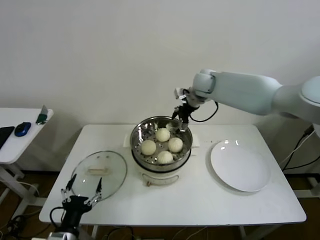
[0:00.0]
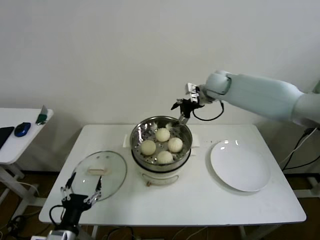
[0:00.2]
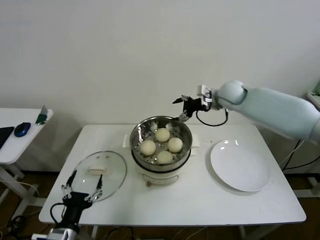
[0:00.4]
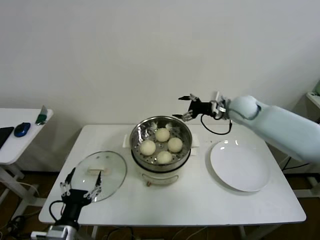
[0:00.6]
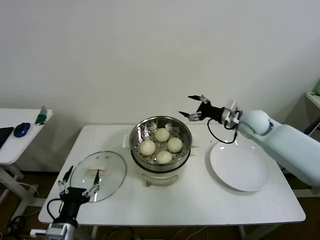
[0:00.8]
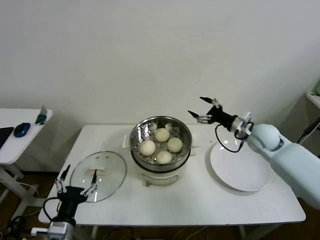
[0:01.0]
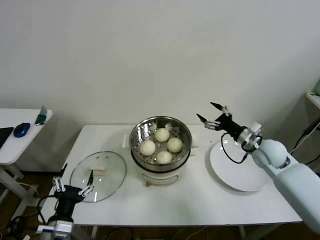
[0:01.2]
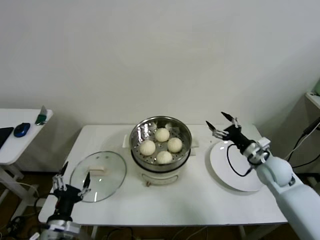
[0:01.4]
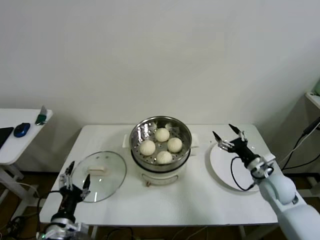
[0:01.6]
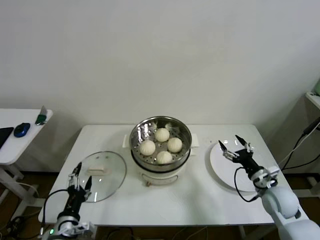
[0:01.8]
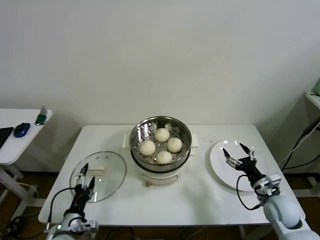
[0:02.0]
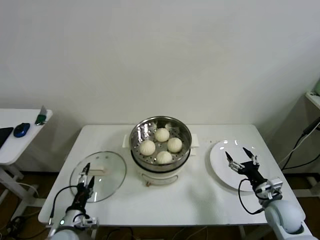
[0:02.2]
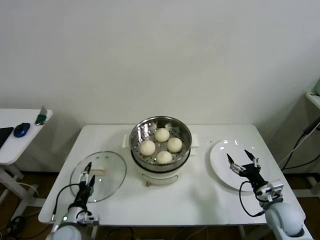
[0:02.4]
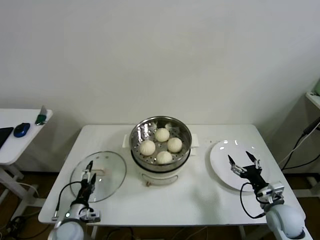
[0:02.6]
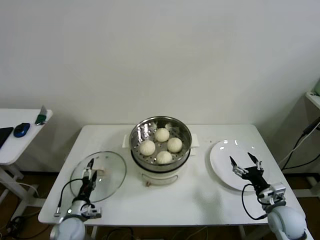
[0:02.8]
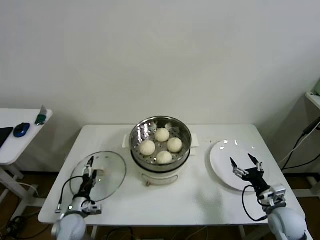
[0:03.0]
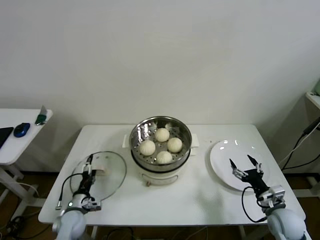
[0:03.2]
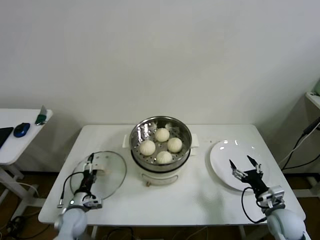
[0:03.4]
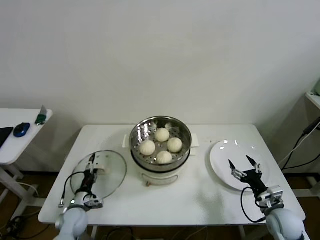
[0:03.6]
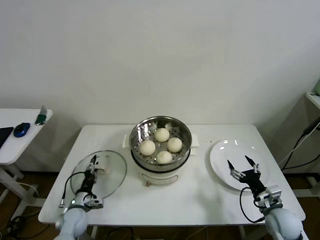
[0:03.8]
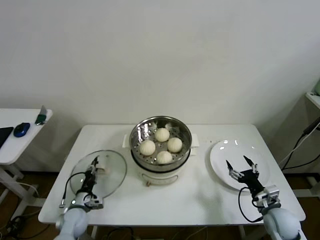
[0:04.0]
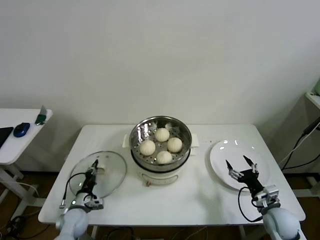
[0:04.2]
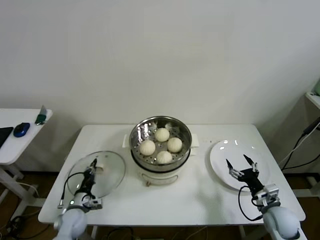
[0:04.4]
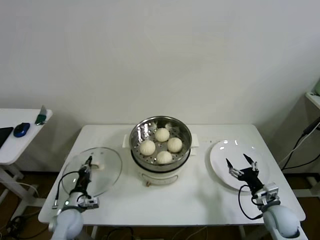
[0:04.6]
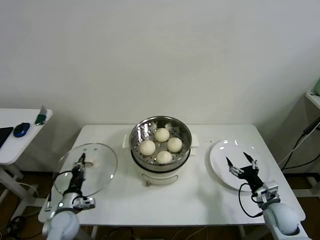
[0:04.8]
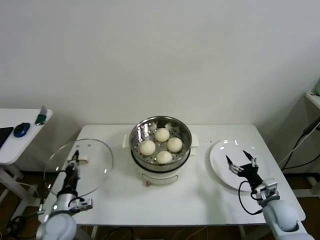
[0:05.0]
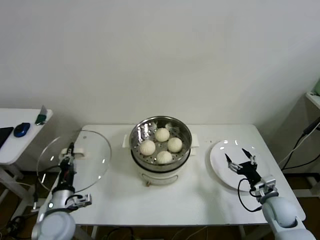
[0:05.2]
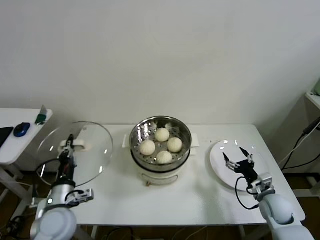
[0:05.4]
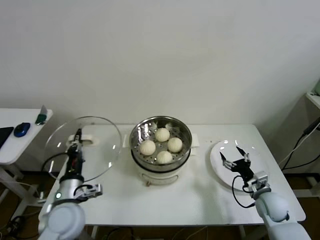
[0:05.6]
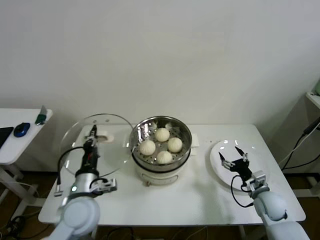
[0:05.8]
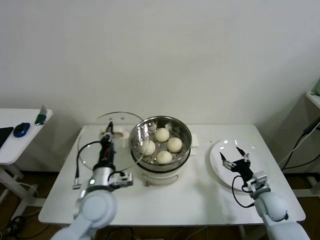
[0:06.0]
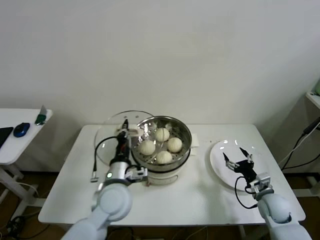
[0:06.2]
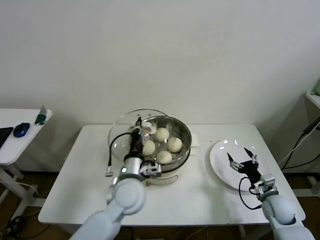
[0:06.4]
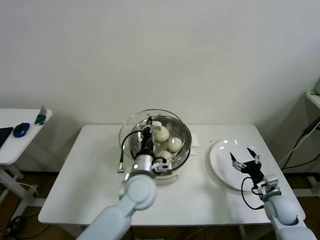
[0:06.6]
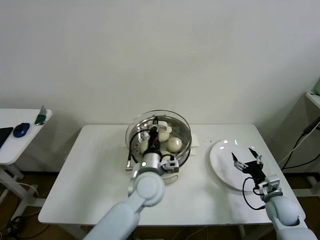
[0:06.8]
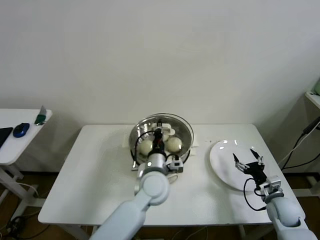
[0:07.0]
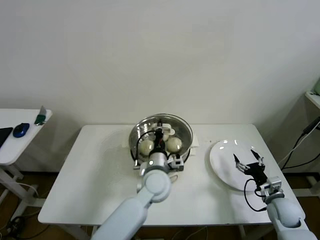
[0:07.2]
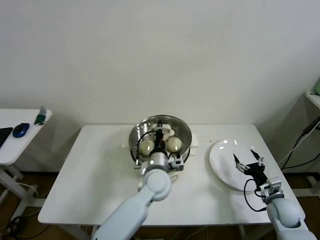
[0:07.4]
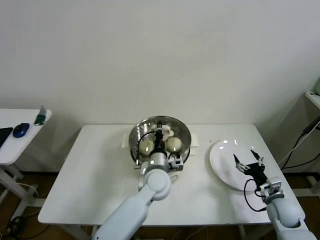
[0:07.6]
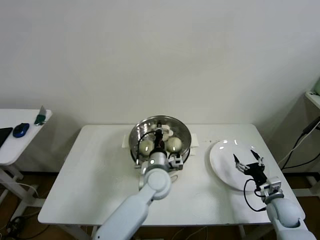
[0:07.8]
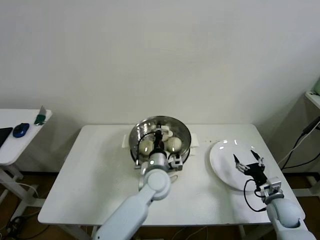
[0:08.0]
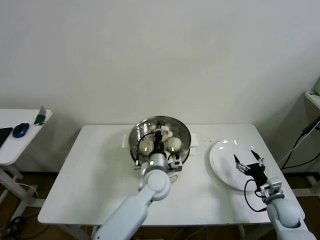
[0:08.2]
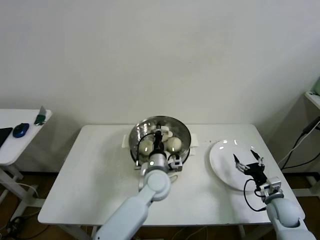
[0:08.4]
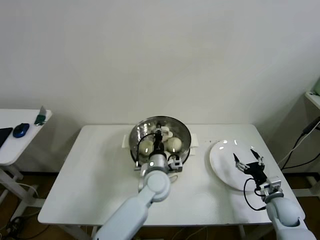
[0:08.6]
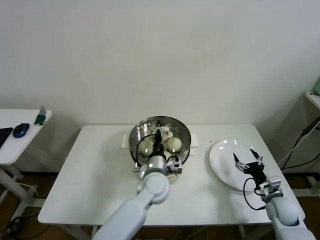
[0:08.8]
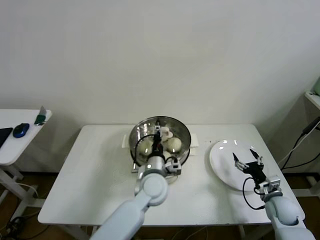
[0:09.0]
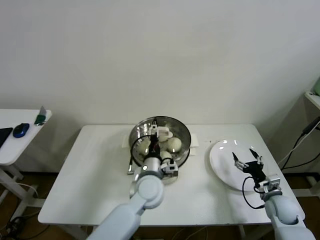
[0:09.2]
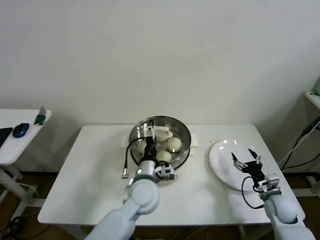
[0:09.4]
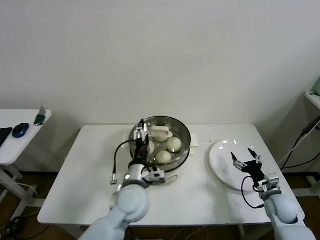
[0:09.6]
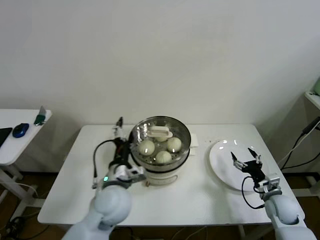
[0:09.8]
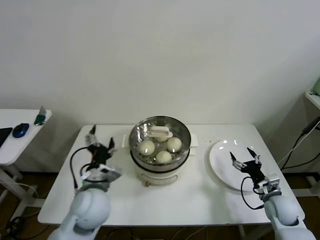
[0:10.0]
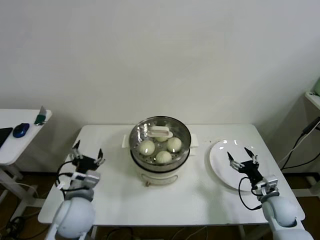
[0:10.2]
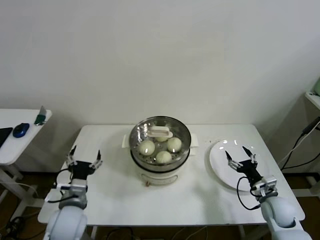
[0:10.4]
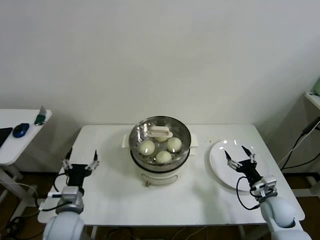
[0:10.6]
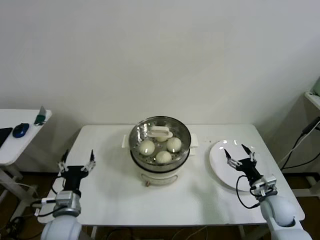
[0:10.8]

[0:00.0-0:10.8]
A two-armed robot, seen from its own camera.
Step, 0:00.0 to 0:04.2: Grasp the pot lid with left gripper.
Step, 0:04.4 to 0:08.8: Place the pot lid on the steamer with left gripper.
0:00.0 to 0:01.6: The right gripper is displaced backward, downward and to the right by approximately 40 cm.
0:01.6 to 0:03.0: The left gripper is displaced downward and forward by about 20 cm, while the right gripper heads backward and downward, covering roughly 10 cm.
0:03.0 to 0:04.6: The left gripper closes.
0:04.6 to 0:06.2: The left gripper goes roughly 30 cm upward and to the right.
0:06.2 to 0:07.8: The left gripper heads to the right and forward, covering roughly 15 cm.
0:07.8 to 0:09.2: The left gripper opens up.
0:09.2 to 0:10.8: The left gripper travels to the left and backward by approximately 25 cm.
